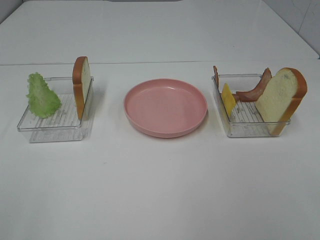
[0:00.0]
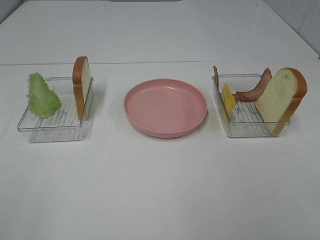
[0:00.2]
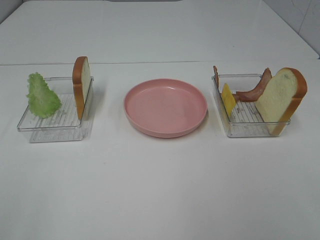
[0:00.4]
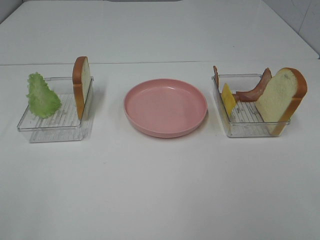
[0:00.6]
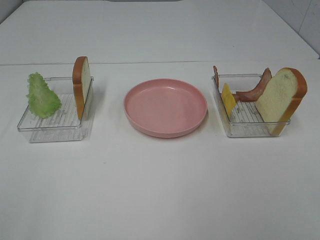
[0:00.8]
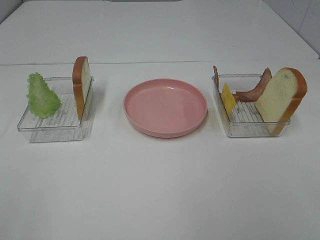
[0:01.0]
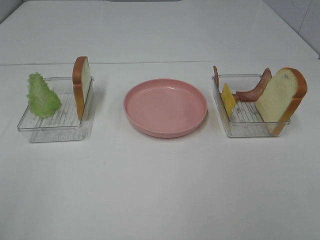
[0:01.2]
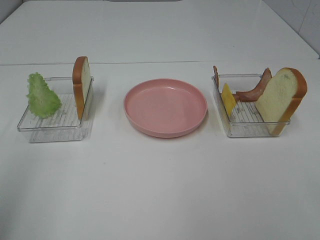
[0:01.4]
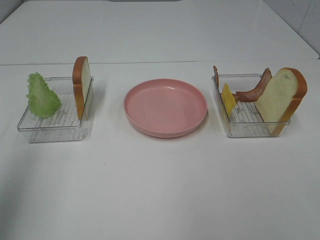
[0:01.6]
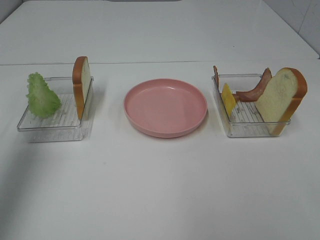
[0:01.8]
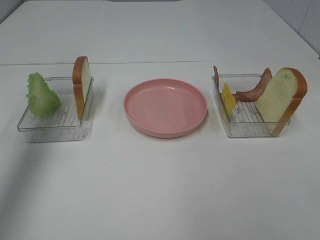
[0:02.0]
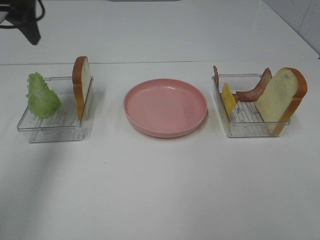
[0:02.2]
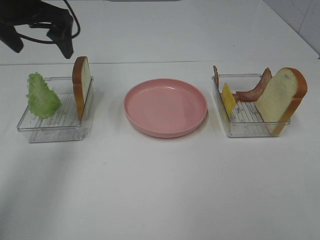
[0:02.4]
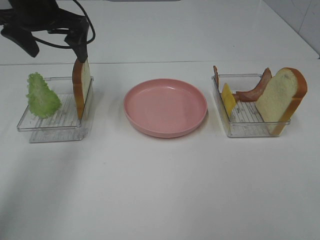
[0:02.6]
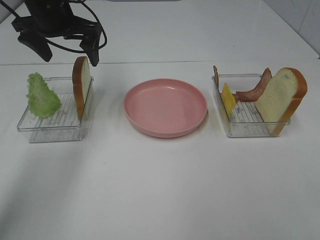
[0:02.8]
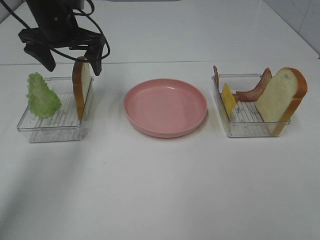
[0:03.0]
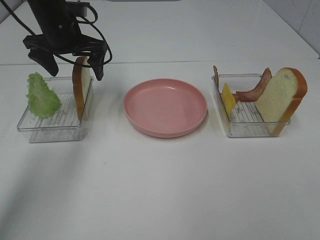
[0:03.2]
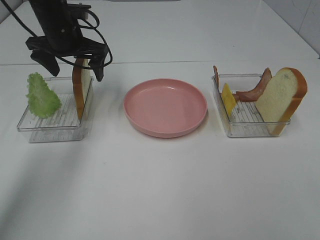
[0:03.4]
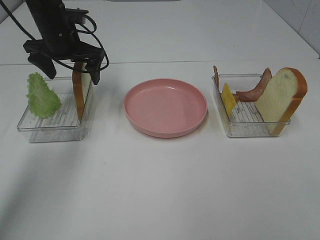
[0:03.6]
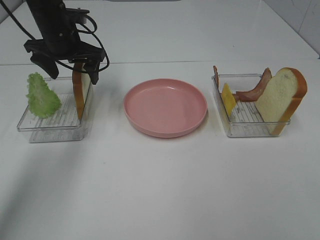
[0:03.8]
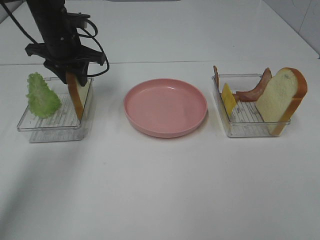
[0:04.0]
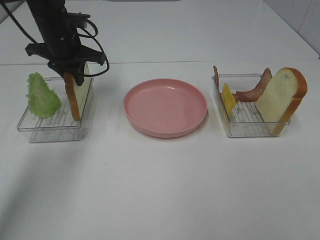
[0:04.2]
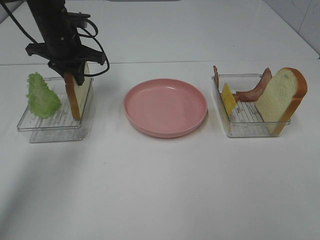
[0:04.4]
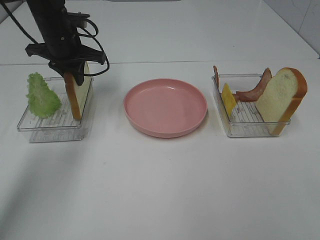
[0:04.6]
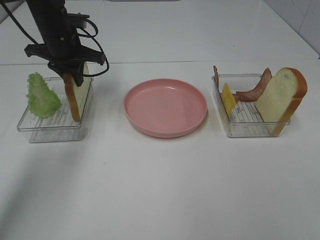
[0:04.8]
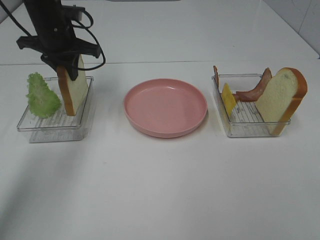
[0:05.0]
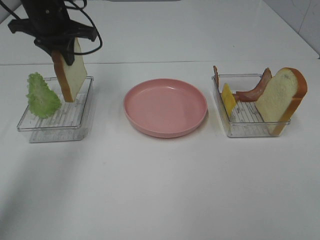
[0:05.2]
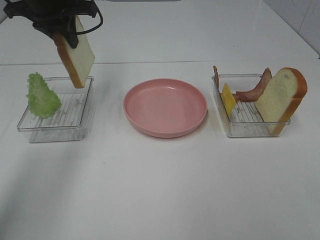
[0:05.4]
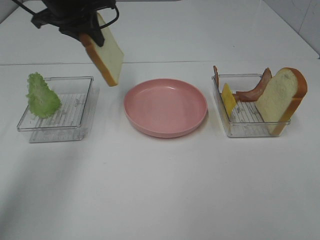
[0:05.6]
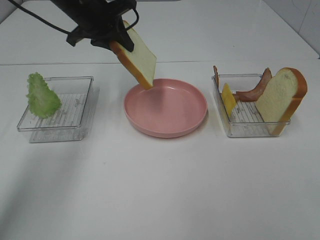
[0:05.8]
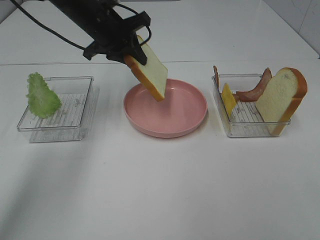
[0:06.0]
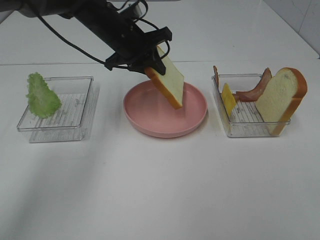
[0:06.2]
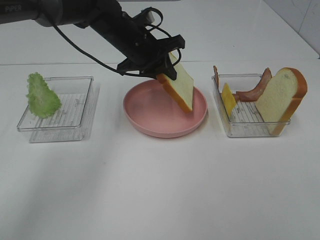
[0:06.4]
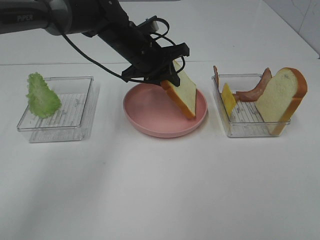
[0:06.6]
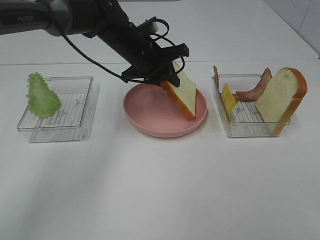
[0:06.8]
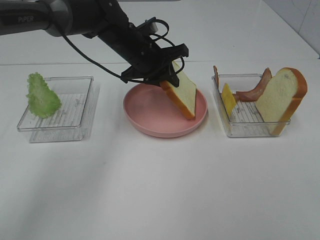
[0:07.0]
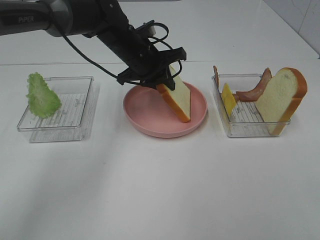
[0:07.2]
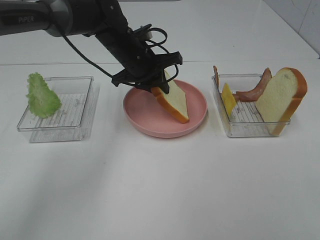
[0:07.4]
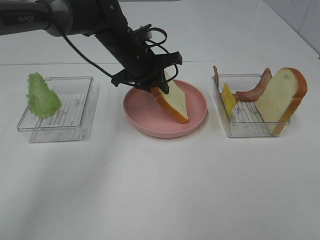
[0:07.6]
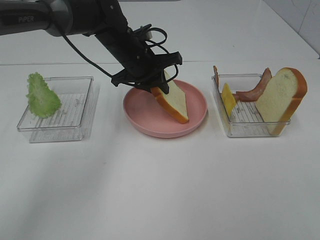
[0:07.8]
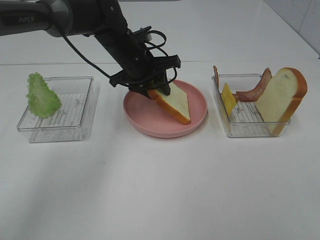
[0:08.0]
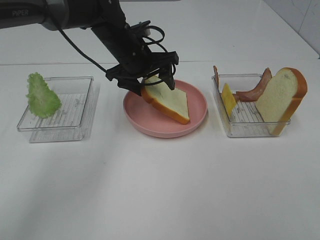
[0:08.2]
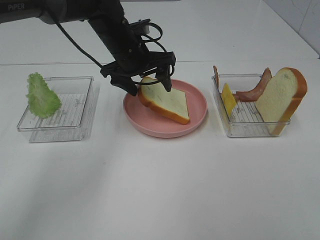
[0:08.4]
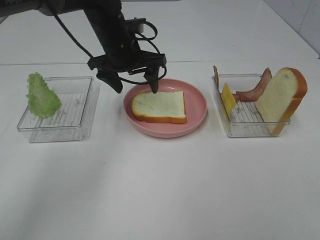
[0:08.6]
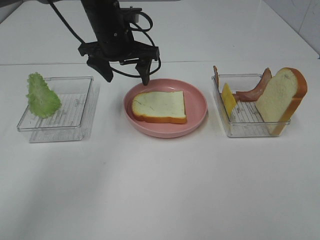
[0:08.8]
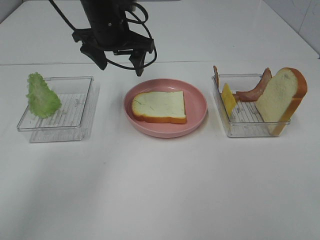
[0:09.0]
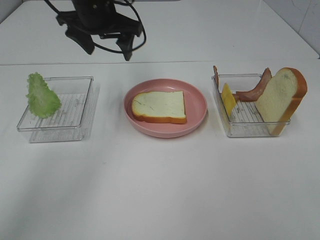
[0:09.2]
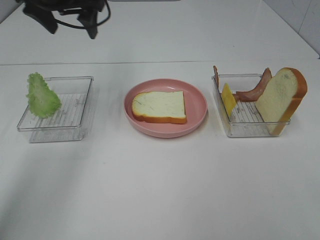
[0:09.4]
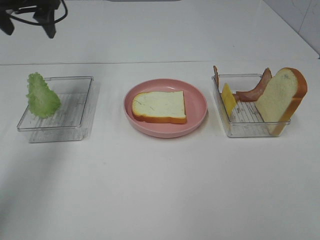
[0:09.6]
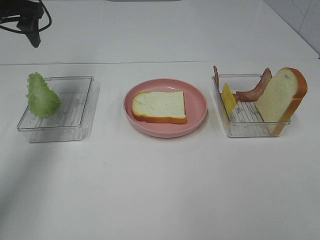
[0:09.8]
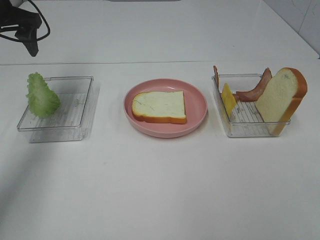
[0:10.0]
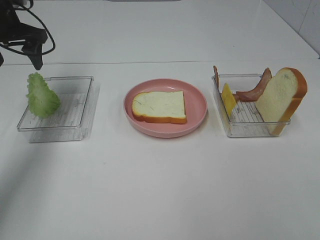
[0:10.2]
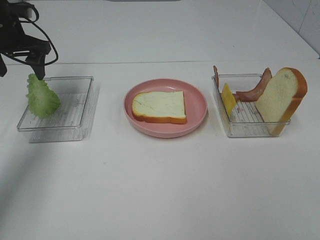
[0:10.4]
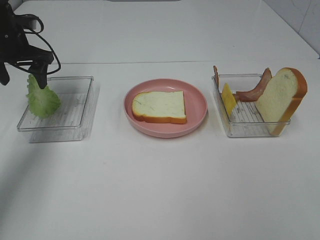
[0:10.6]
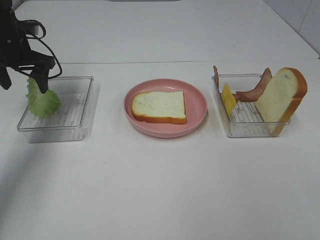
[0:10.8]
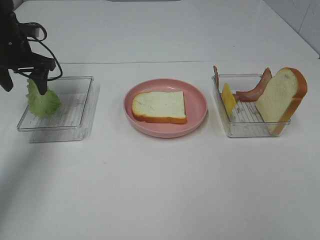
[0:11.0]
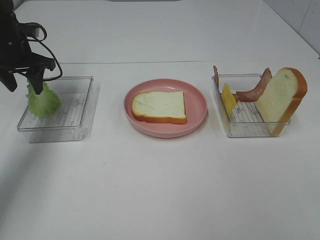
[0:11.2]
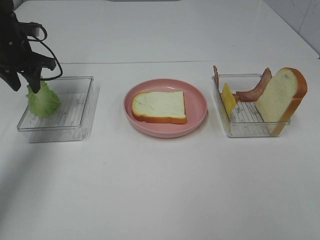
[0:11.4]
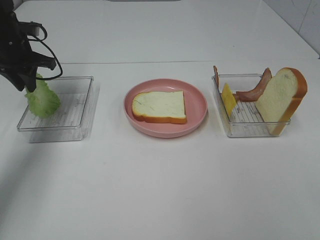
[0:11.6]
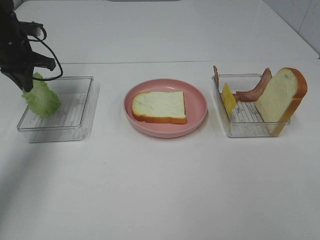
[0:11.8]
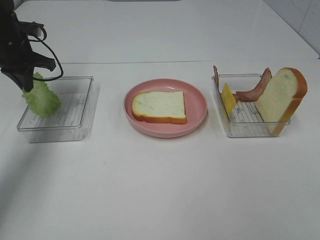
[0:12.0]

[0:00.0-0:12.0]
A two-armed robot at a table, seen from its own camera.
Task of the whole recording: Make sandwiches.
Step, 0:00.0 to 0:04.6: Left hand:grab the bread slice.
Step, 0:04.8 to 0:08.8: Left hand:place the bread slice on the plate.
Step, 0:09.0 to 0:11.8: Left hand:grab the lettuce slice.
0:00.0 to 0:01.6: The left gripper is displaced forward and upward by approximately 20 cm.
0:01.6 to 0:03.0: The left gripper heads forward, downward and to the right, covering approximately 35 cm.
0:03.0 to 0:04.4: The left gripper closes its fingers.
0:04.4 to 0:06.0: The left gripper shifts some 5 cm to the right, and travels upward and back again, about 10 cm each way.
0:06.0 to 0:07.6: The left gripper shifts some 10 cm downward and to the right.
0:07.6 to 0:09.0: The left gripper goes roughly 10 cm upward, and opens up.
0:09.0 to 0:10.4: The left gripper goes roughly 20 cm to the left.
0:10.4 to 0:12.0: The left gripper closes up.

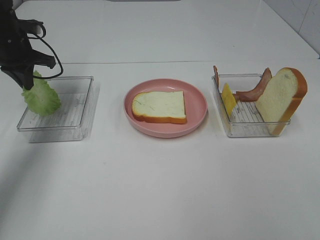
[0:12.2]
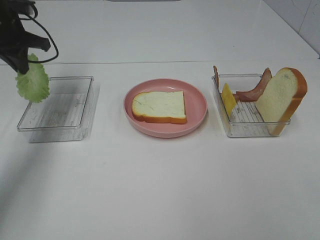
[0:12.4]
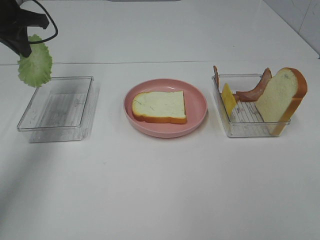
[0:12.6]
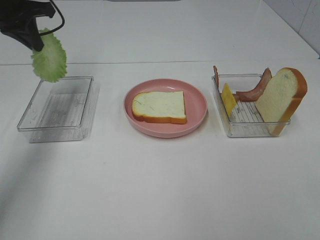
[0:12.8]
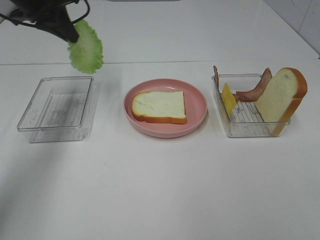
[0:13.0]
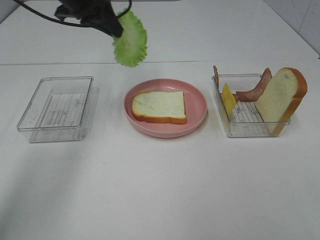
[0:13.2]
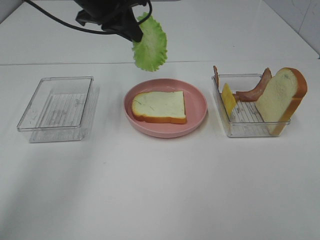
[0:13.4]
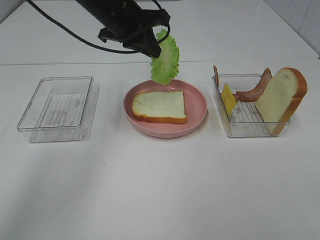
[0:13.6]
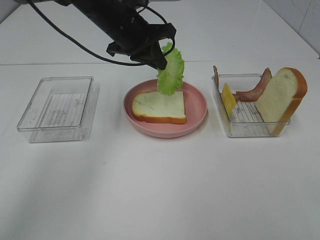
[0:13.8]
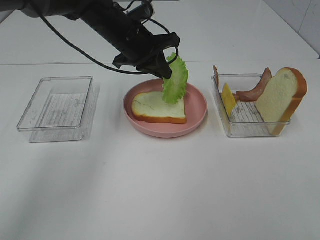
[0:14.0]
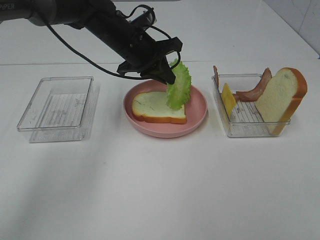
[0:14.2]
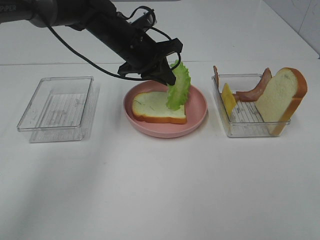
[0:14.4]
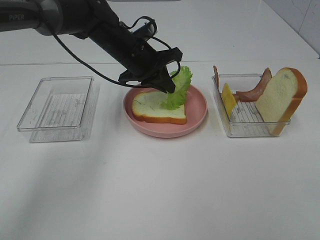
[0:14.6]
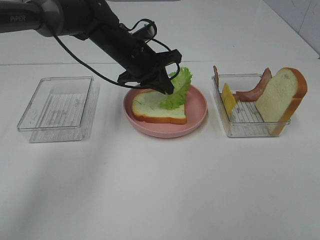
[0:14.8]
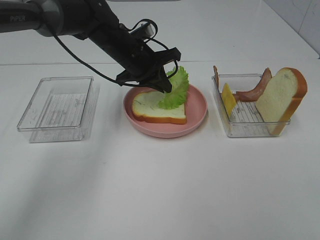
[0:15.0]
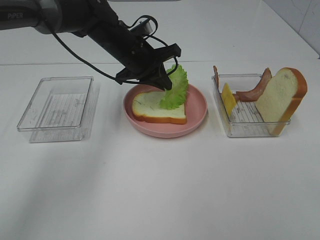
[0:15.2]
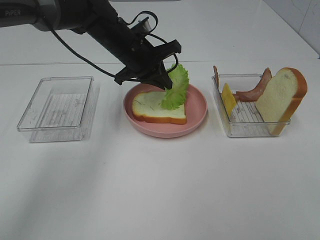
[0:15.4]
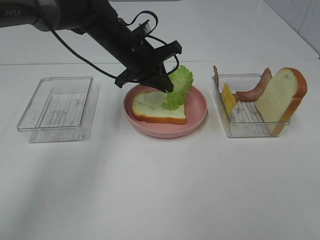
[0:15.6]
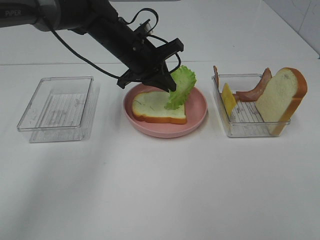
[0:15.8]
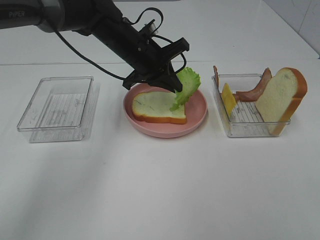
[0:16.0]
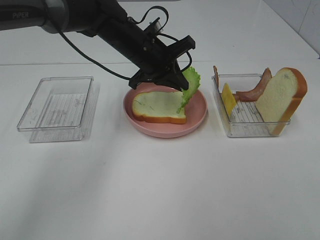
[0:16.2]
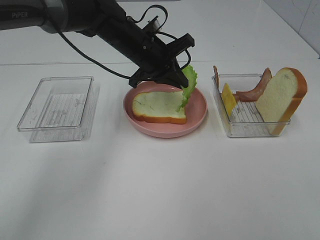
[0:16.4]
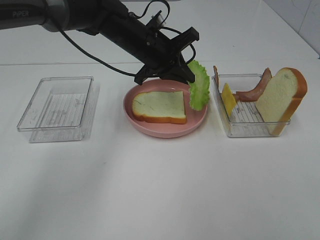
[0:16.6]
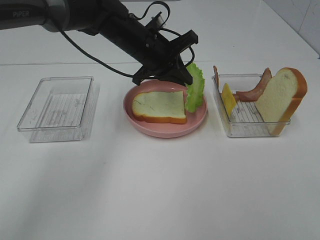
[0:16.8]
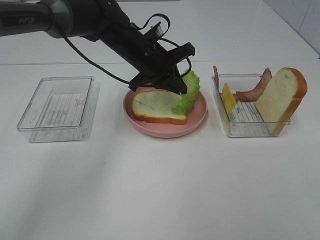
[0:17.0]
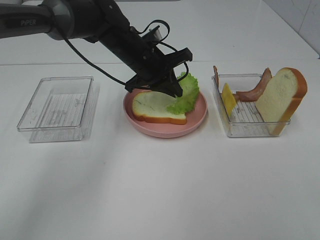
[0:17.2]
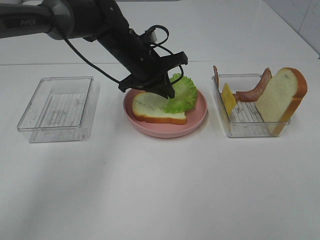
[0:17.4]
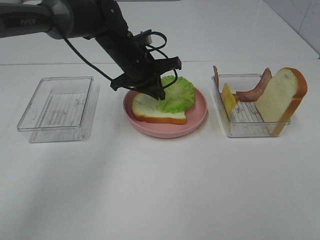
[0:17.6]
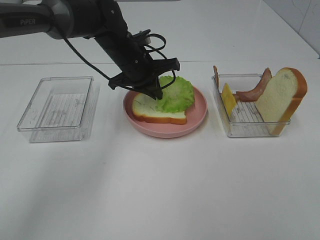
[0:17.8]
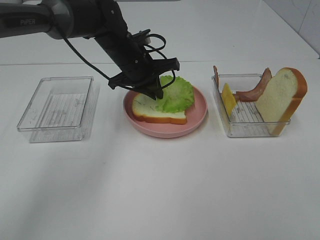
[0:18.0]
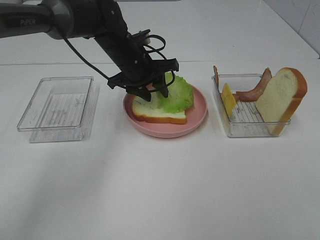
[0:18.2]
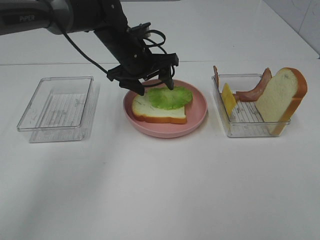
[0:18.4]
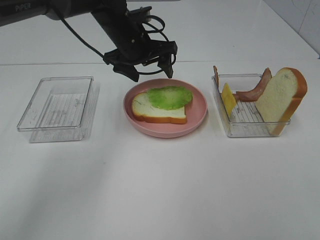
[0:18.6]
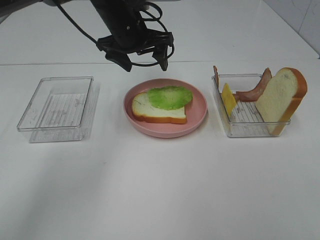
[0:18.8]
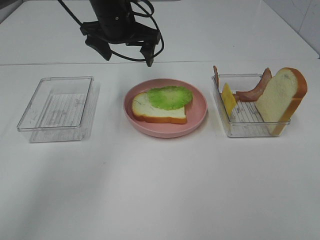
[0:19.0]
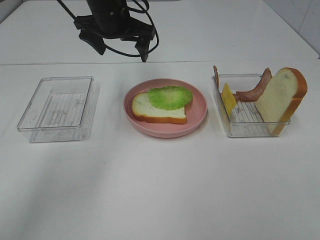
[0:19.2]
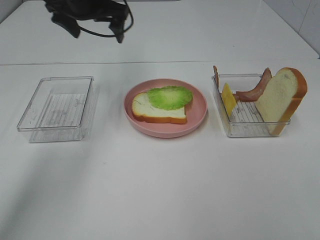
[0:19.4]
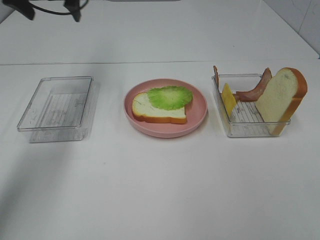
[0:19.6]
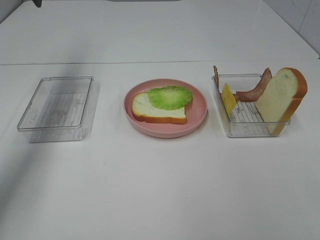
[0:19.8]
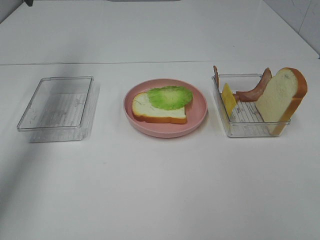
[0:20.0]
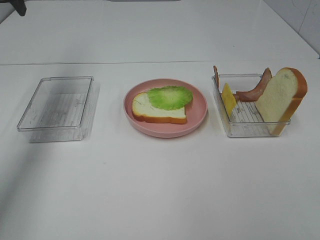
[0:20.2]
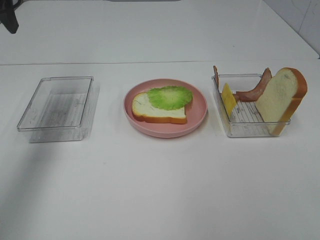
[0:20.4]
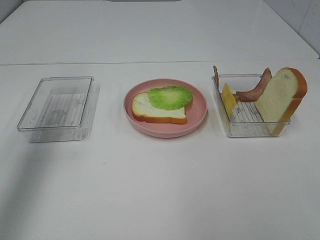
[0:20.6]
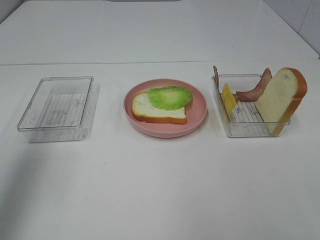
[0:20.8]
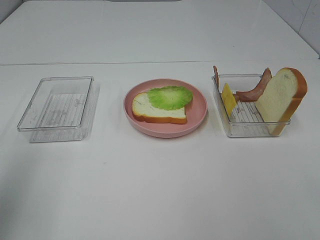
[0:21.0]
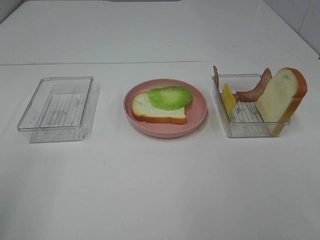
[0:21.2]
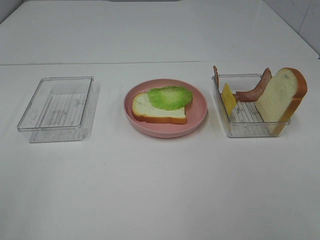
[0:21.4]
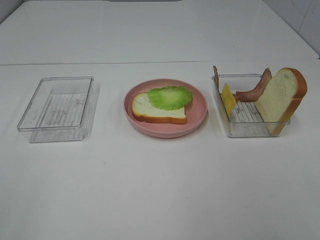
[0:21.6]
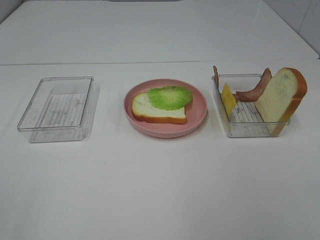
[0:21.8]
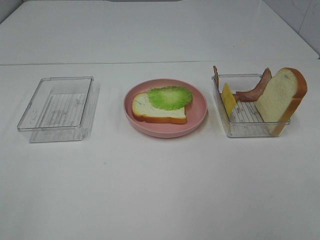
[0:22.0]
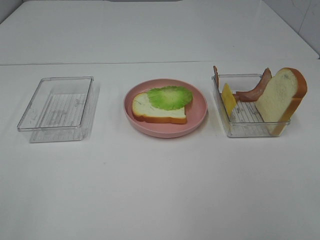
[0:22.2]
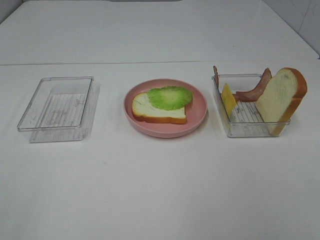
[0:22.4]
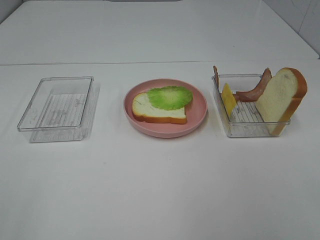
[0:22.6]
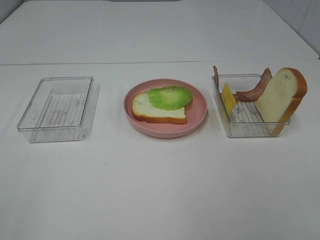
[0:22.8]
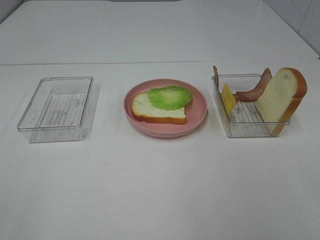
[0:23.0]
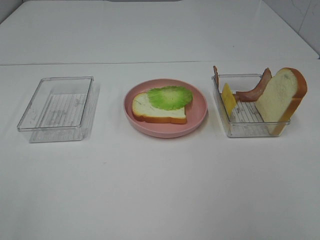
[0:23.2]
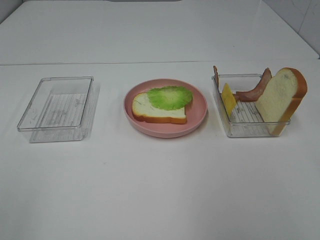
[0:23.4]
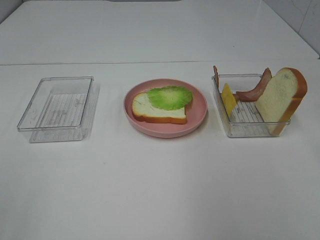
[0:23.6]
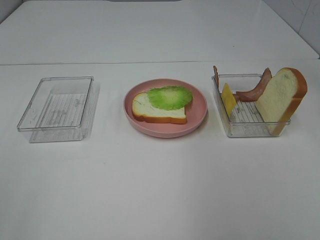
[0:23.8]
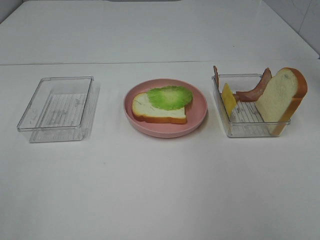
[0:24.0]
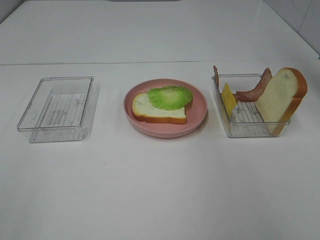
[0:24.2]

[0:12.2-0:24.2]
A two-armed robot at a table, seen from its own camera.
Task of the whole recording: Make sandwiches.
Step, 0:12.2 to 0:18.4: Left hand:place the lettuce slice on the bread slice.
0:12.2 to 0:13.8: The left gripper travels to the right by about 25 cm.
0:13.8 to 0:15.2: The left gripper travels downward by roughly 5 cm.
0:15.2 to 0:16.6: The grippers move only a little.
0:16.6 to 0:18.2: The left gripper opens its fingers.
0:18.2 to 0:19.8: The left gripper travels to the left and upward by approximately 30 cm, and opens.
0:19.8 to 0:21.2: The left gripper shifts about 40 cm backward.
